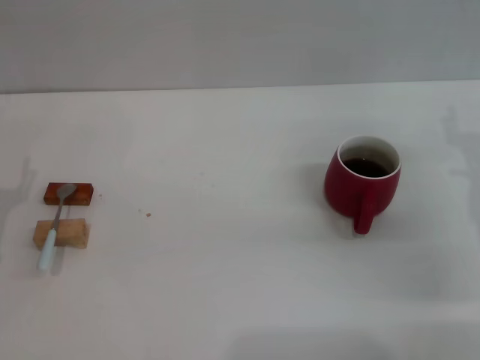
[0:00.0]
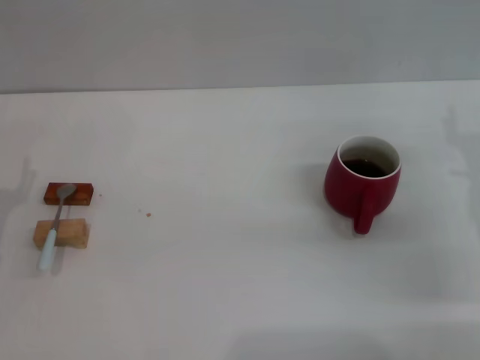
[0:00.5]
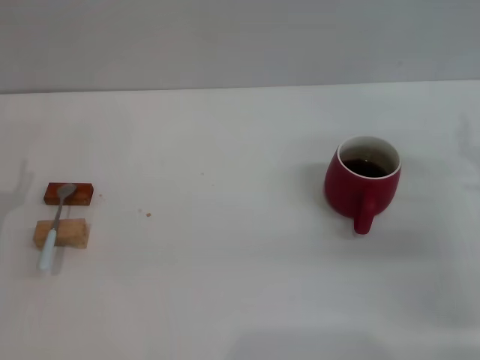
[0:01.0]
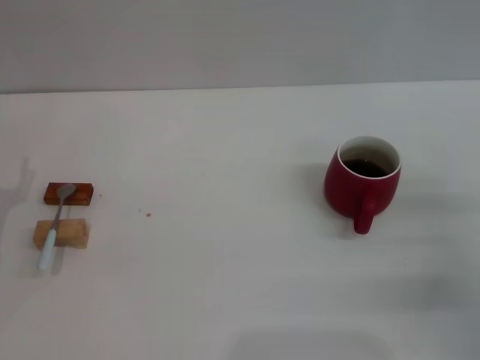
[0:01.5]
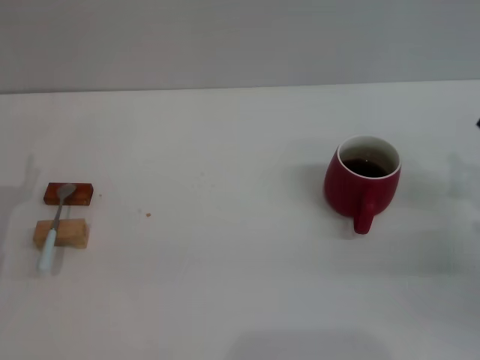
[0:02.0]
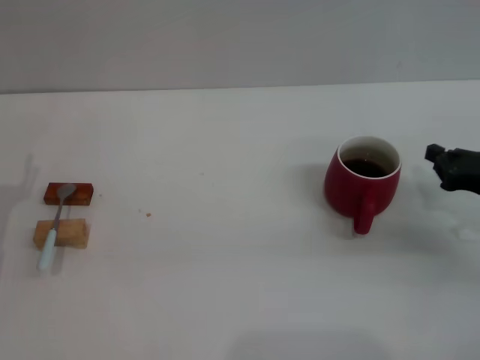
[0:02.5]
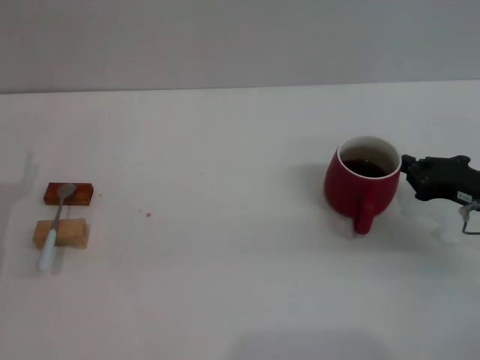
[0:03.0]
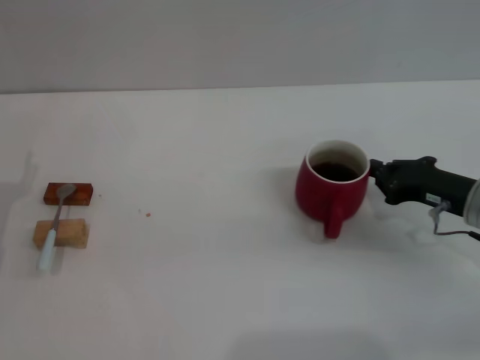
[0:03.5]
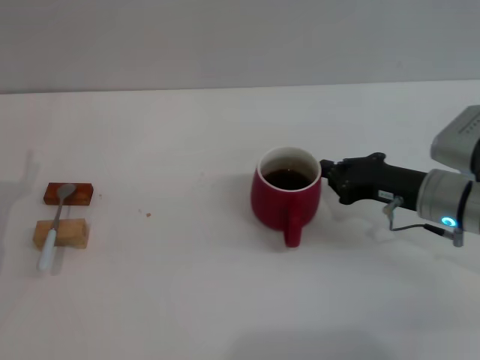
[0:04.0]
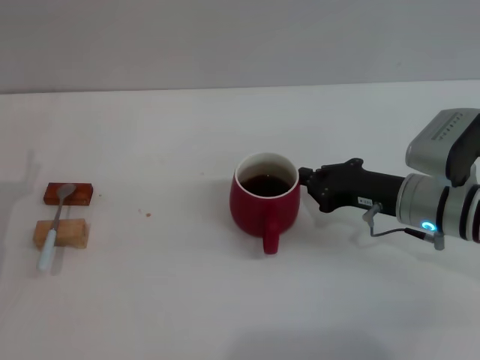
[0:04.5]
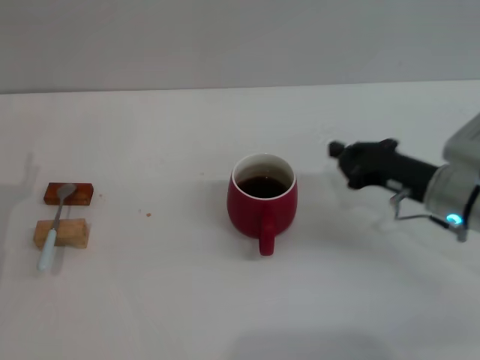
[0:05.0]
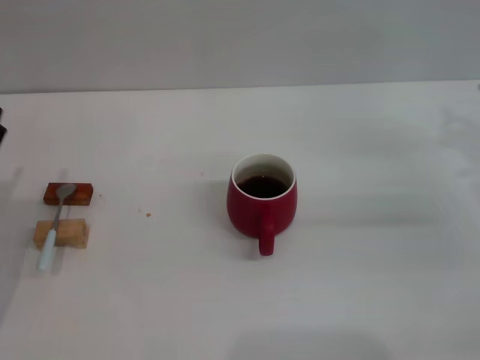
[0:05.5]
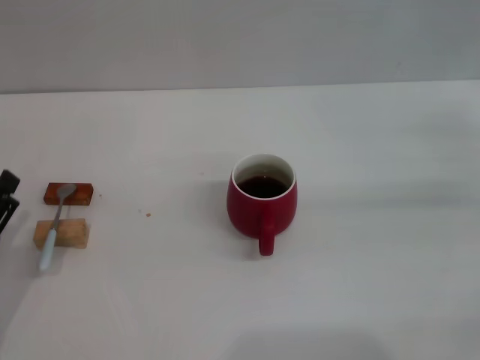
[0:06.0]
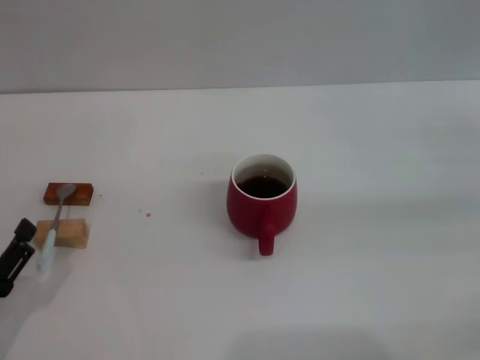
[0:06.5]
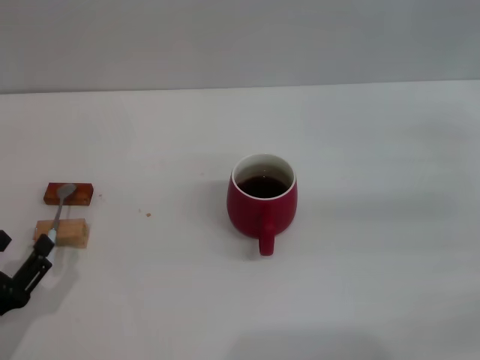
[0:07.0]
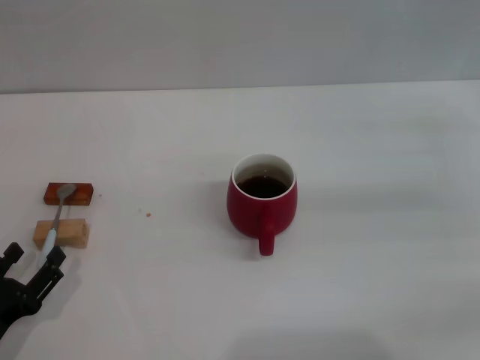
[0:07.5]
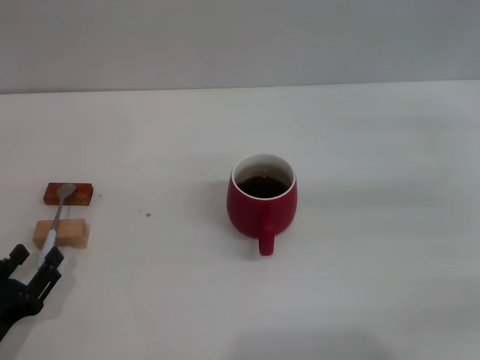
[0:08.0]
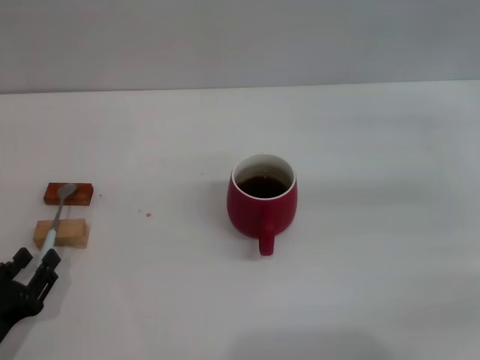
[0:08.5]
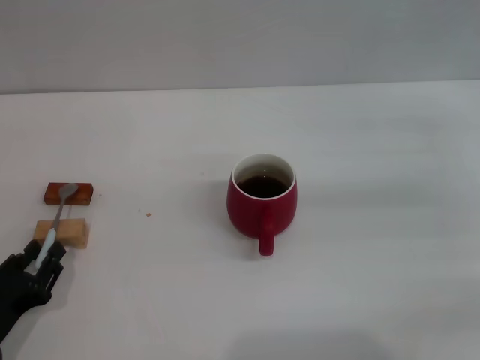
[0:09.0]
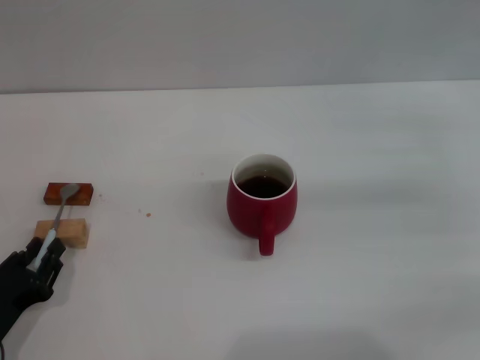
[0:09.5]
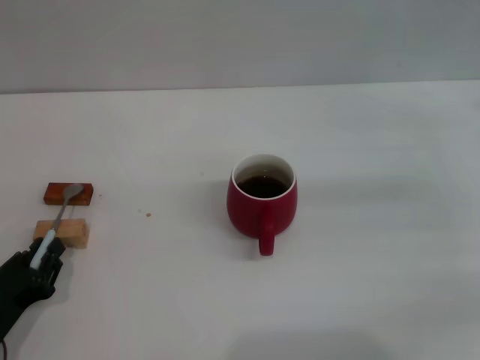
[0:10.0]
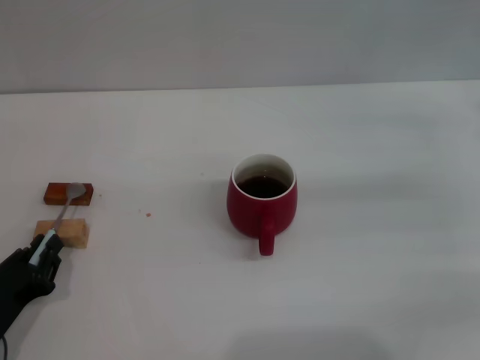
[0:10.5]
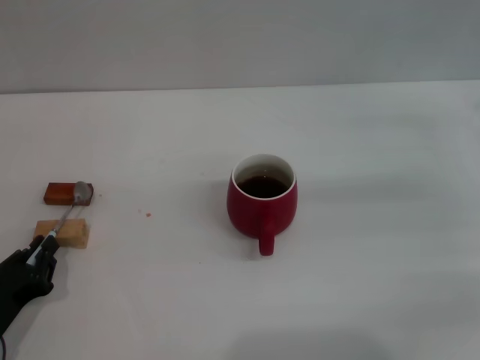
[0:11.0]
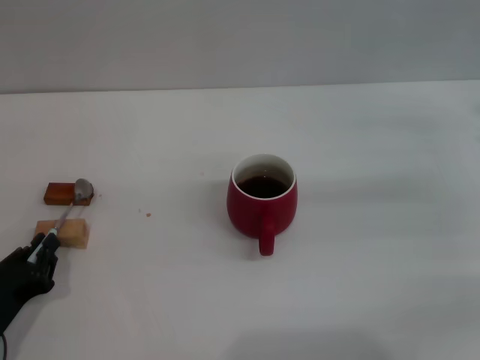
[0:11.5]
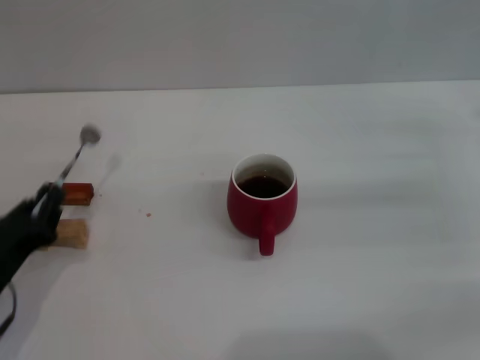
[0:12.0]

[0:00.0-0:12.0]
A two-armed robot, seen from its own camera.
Task of the whole recording: Move the red cup to the center, lift the blue spoon, stir it three times in the cup, and put the spoon into the cup.
Step, 0:00.0 to 0:04.5: Move the cup with coffee to the center of view with the right gripper.
Step, 0:05.0 to 0:11.5: Pick up the spoon with the left gripper.
0:00.0 to 0:02.0: The right gripper goes roughly 5 cm to the right, and closes.
0:02.0 to 0:04.0: The right gripper travels to the left by some 10 cm.
0:04.0 to 0:06.0: The left gripper moves backward, roughly 10 cm; the right gripper heads to the right and upward, covering roughly 20 cm.
0:06.0 to 0:08.0: The grippers move only a little.
0:08.0 to 0:10.0: The left gripper closes its fingers.
0:10.0 to 0:12.0: The grippers move only a little.

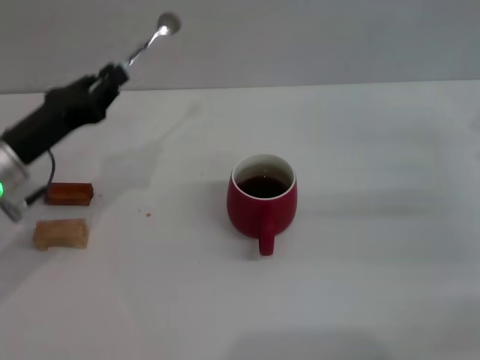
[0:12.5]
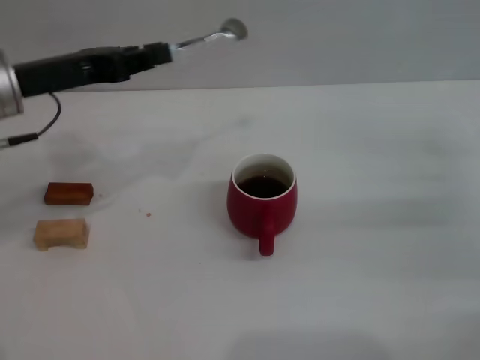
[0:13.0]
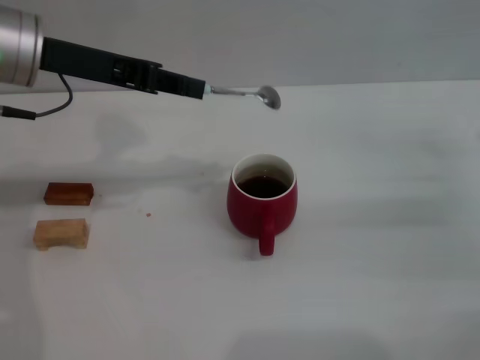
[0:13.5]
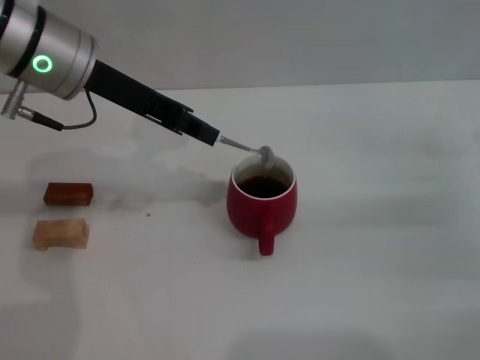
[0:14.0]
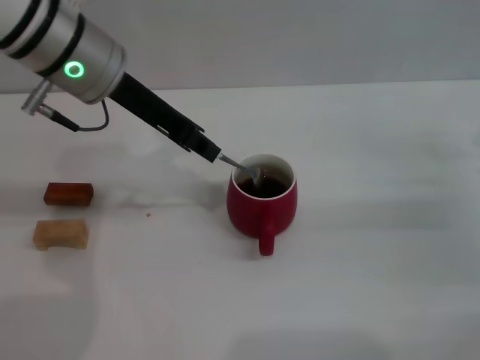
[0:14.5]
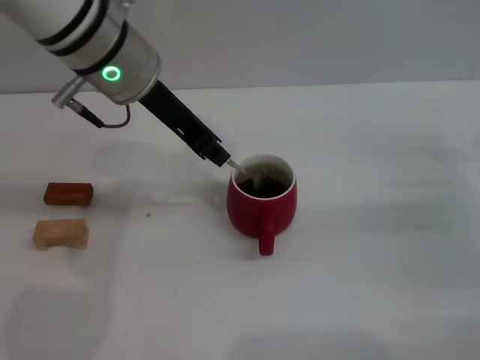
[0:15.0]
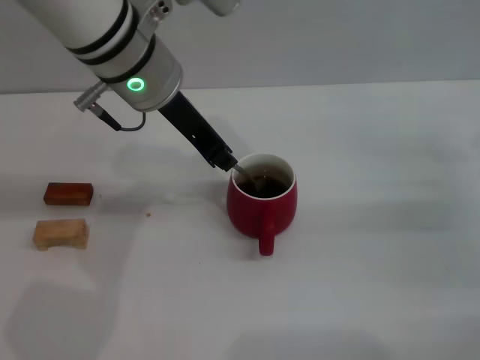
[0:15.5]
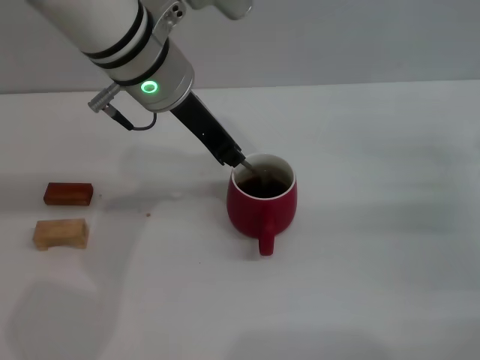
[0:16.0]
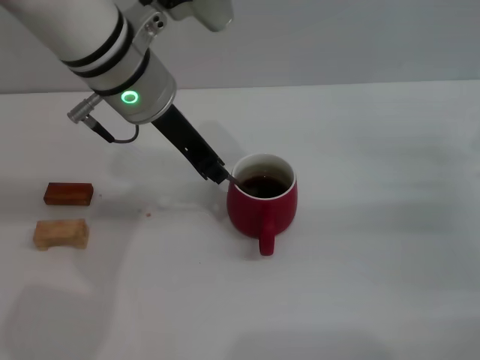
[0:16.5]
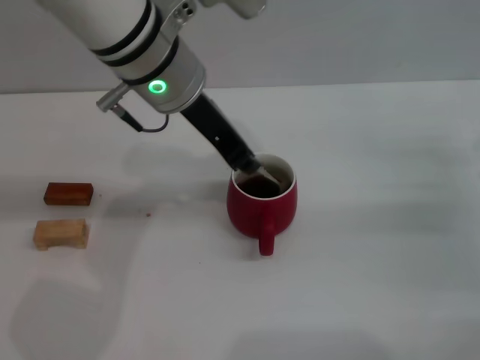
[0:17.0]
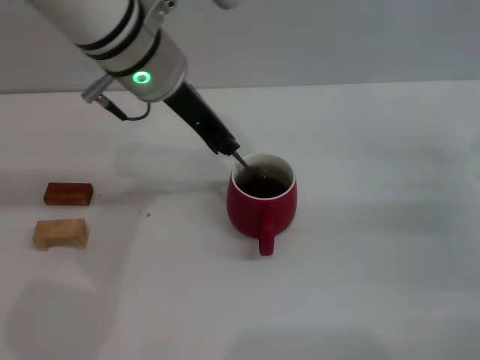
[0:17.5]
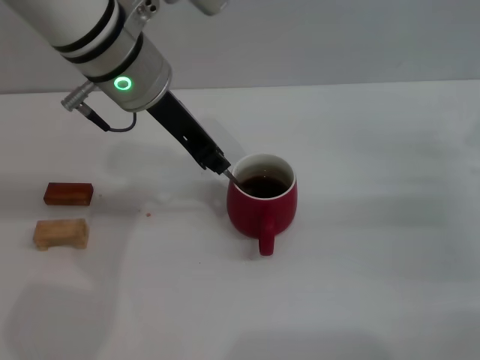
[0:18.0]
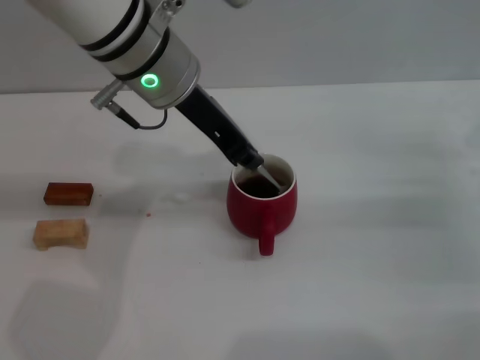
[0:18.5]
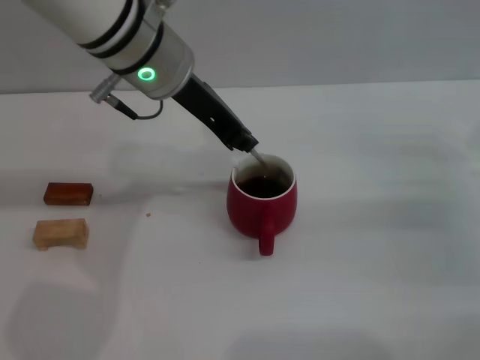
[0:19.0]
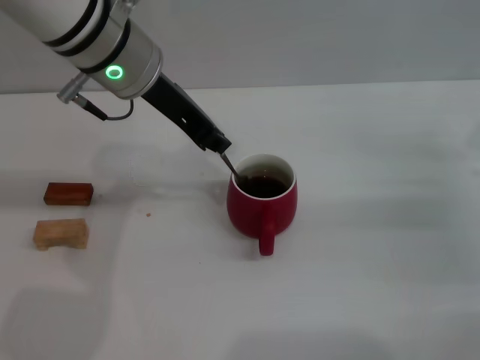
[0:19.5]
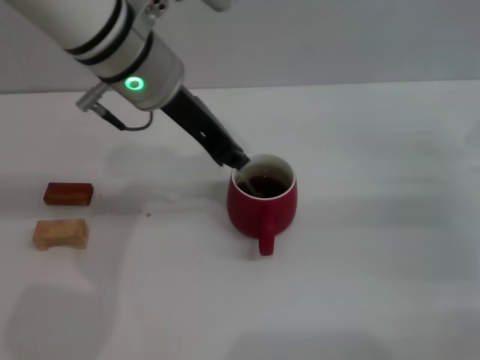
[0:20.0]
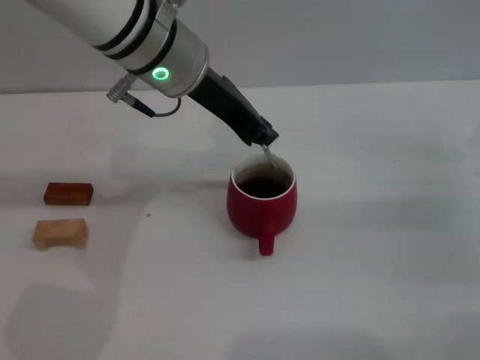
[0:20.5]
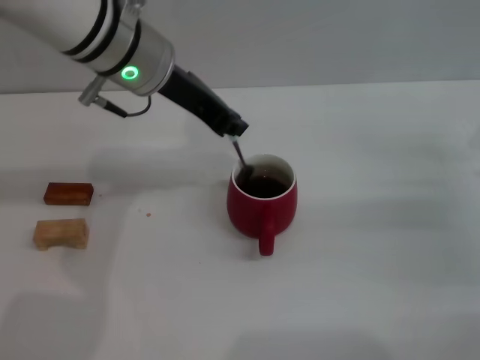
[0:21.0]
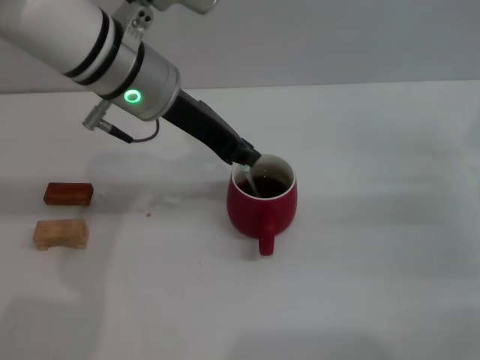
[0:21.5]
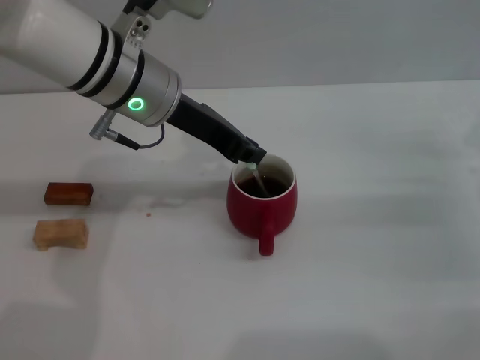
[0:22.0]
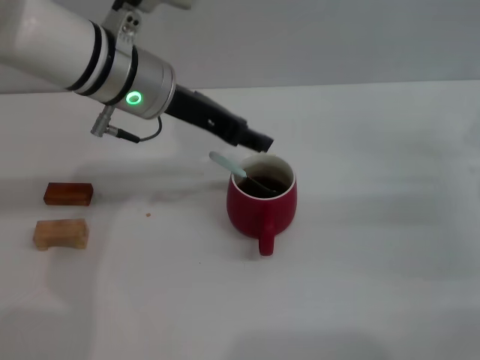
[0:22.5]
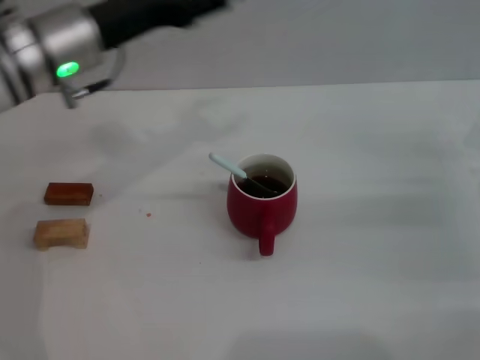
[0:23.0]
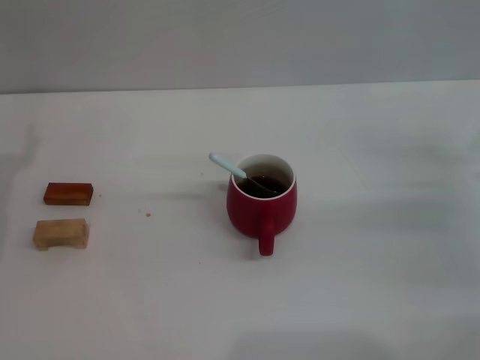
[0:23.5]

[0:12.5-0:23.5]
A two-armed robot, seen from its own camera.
Task of the whole recording: Move the red cup to the center, lift the blue spoon, stir it three times in the cup, and put the spoon into the cup.
Step, 0:12.5 to 0:22.0: Stir the coffee in the cup with the left gripper.
0:12.5 to 0:14.5: The left gripper travels upward, to the right and forward by roughly 20 cm.
0:14.5 to 0:16.0: The left gripper goes approximately 5 cm to the right.
0:16.0 to 0:21.5: The grippers move only a little.
0:21.5 to 0:23.5: The left gripper is displaced to the left, downward and backward by roughly 25 cm, and opens its fingers.

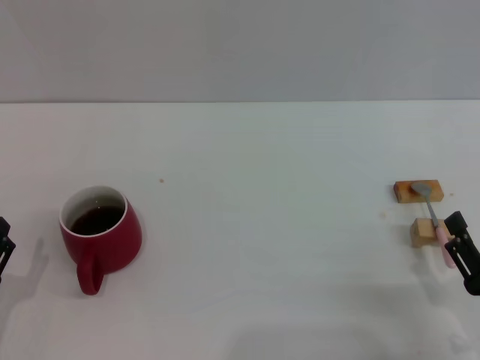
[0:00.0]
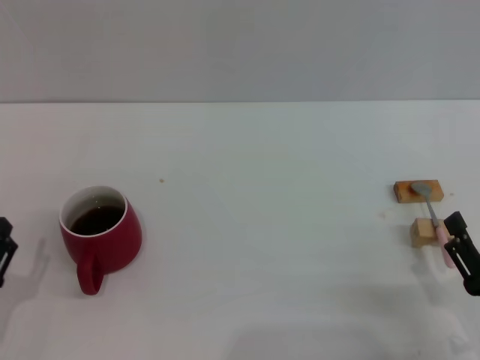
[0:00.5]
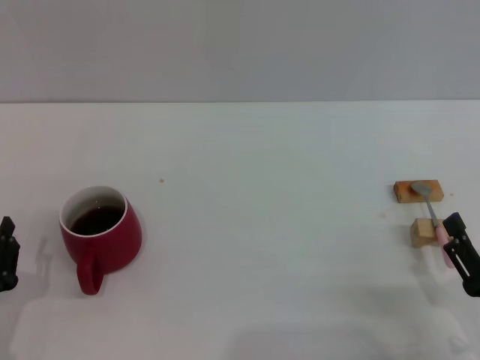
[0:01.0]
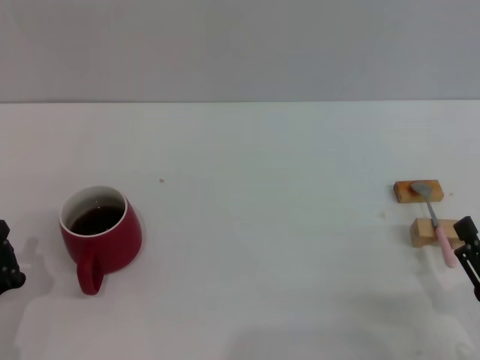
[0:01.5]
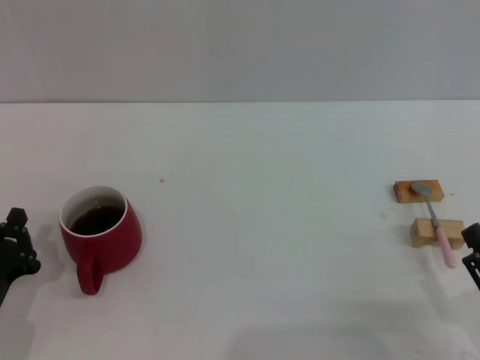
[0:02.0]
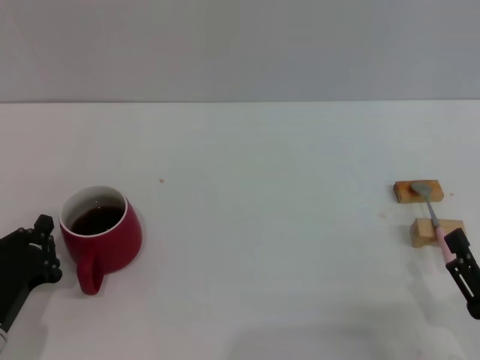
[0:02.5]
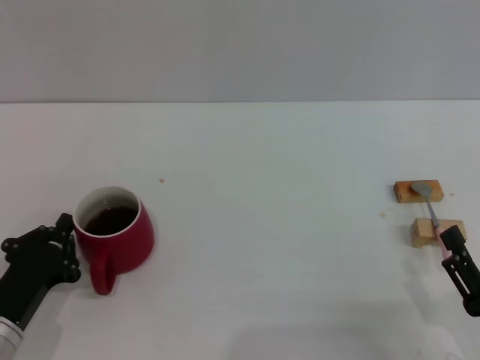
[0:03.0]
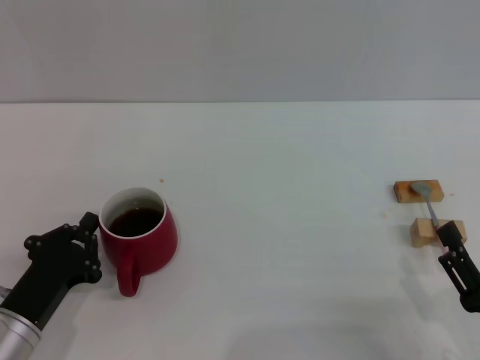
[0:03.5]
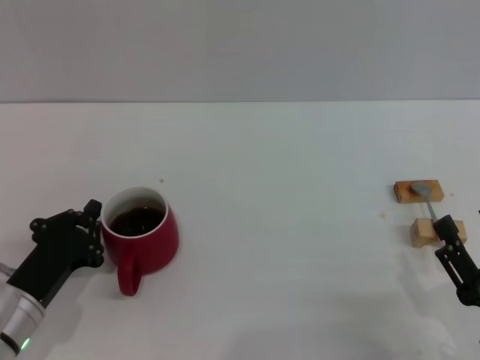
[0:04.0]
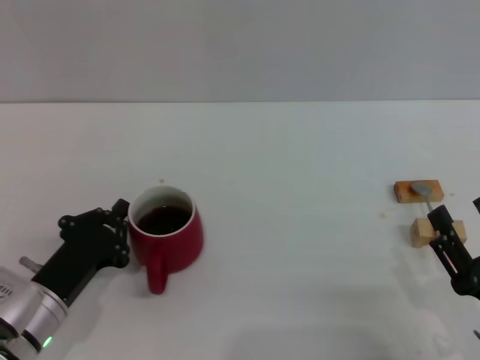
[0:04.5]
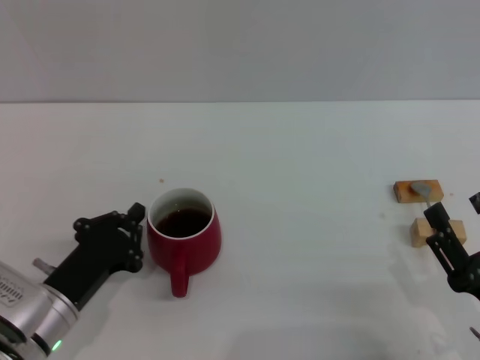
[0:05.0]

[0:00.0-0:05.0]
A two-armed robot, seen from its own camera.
Task of the whole recording: Move the red cup to the center, lift the pink spoon, stir it three times in the cup, and put the spoon into the cup.
0:00.0 to 0:02.5: The left gripper closes.
0:02.5 to 0:05.0: The left gripper heads to the right, covering some 5 cm.
